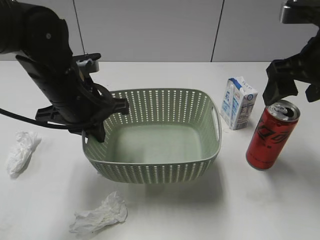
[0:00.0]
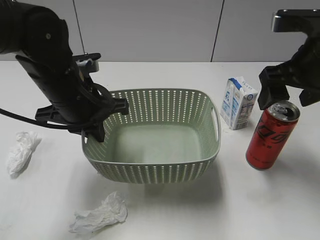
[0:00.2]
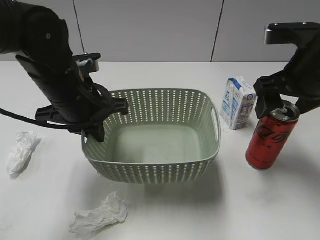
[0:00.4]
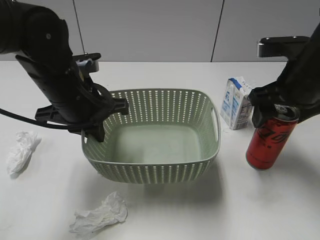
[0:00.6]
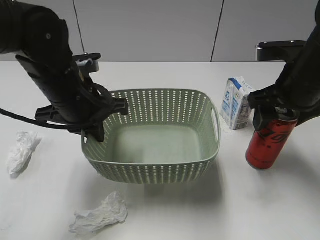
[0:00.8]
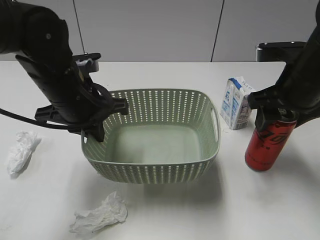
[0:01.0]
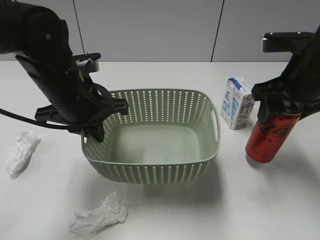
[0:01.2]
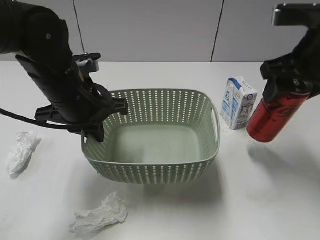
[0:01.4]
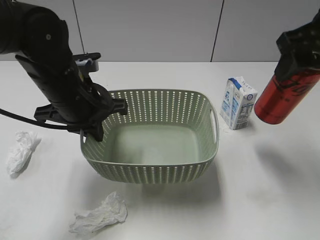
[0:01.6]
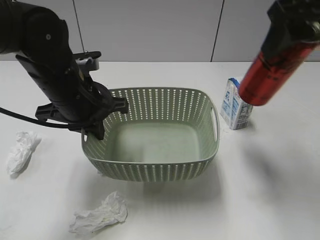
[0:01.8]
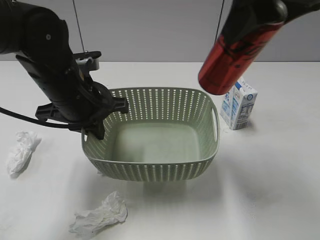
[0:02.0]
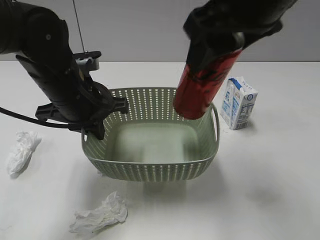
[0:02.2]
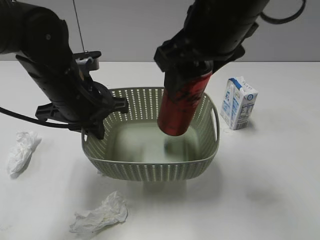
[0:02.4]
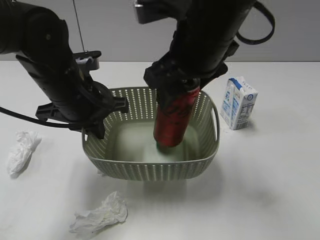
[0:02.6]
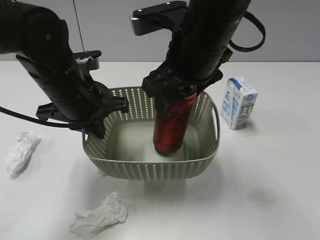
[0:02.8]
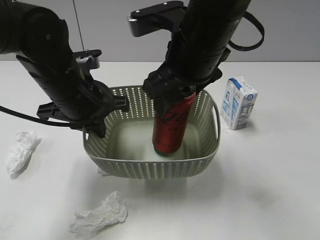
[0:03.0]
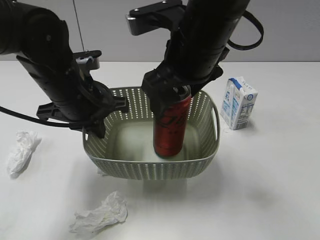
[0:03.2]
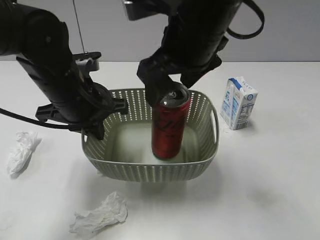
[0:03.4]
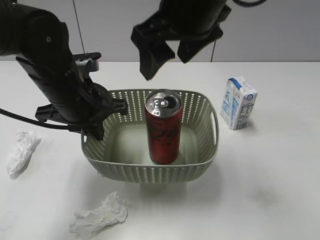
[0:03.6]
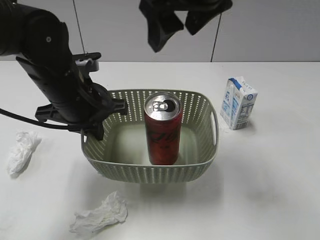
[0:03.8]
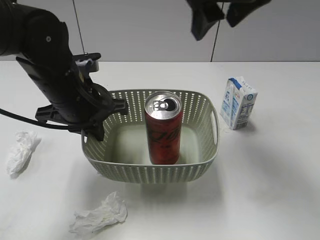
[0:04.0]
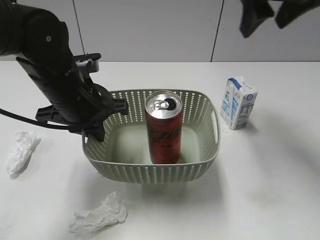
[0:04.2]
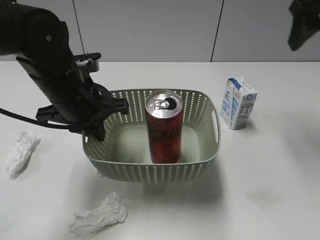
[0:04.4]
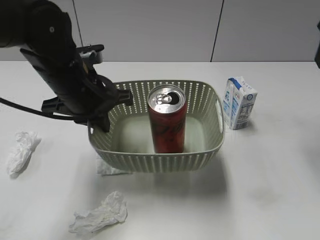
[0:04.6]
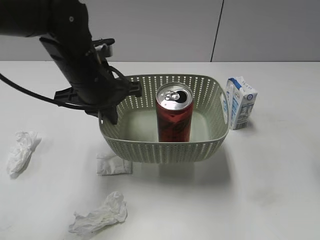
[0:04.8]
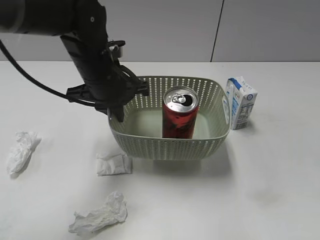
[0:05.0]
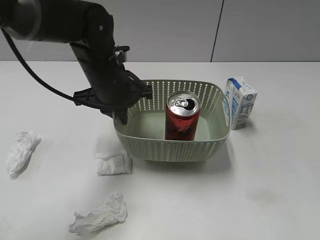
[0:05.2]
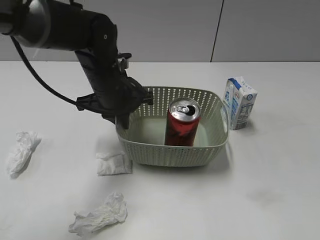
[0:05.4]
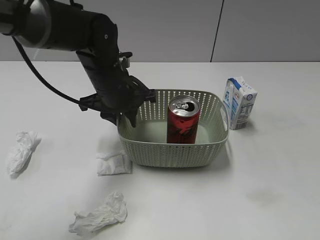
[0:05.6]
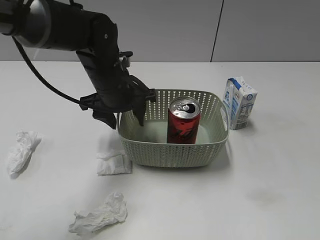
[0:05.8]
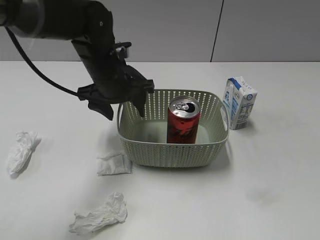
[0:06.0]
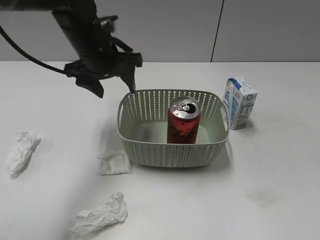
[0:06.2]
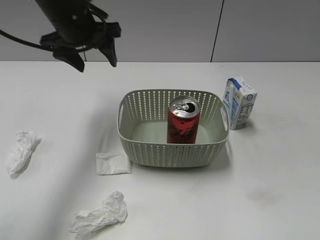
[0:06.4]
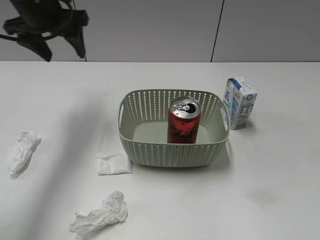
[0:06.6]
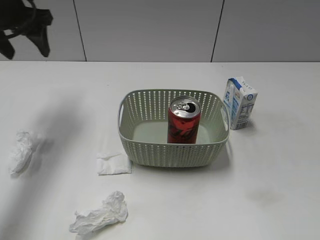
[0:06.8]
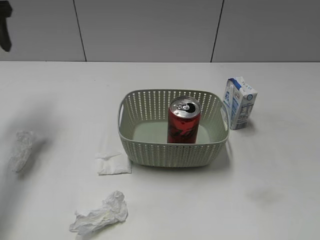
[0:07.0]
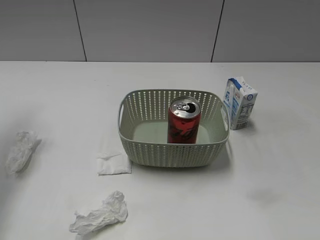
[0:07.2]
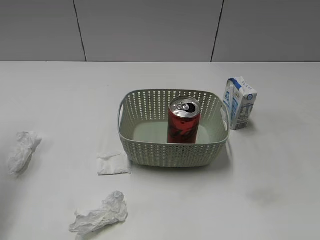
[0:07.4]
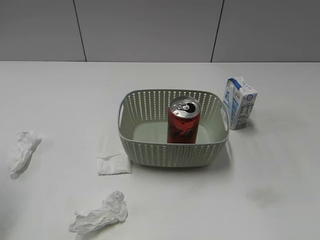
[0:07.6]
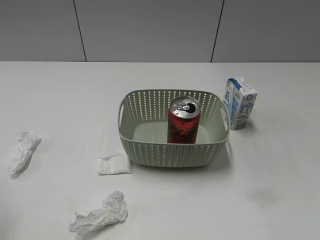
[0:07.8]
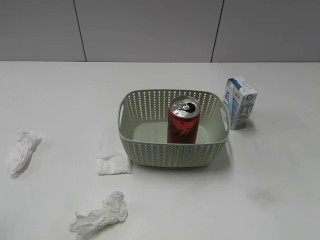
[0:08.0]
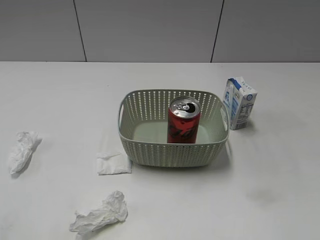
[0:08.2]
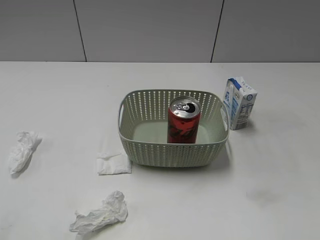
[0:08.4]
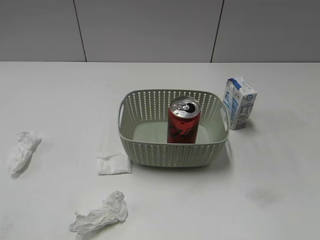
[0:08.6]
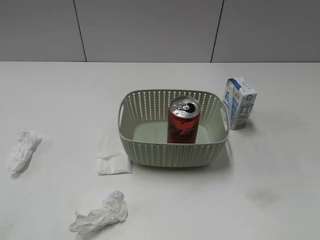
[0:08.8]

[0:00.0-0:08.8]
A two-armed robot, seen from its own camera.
Step, 0:00.0 to 0:01.0: Grasp the cola can with right gripper.
Step, 0:01.2 to 0:03.6: Place the cola can in the basket with right gripper.
Step, 0:03.8 to 0:06.0: Place the basket on the table with left gripper.
0:00.0 to 0:01.4: The right gripper closes its fingers.
0:01.4 to 0:03.0: The right gripper goes some 15 cm to the left.
0:03.0 to 0:04.4: The right gripper travels to the right by about 20 cm, and opens its fingers.
0:04.4 to 0:05.8: The left gripper heads forward, covering some 5 cm, and opens; the right gripper heads backward, covering about 35 cm.
0:05.8 to 0:07.4: The left gripper is displaced to the left and upward by approximately 30 cm.
0:07.4 to 0:08.8: The left gripper heads backward, covering approximately 25 cm.
